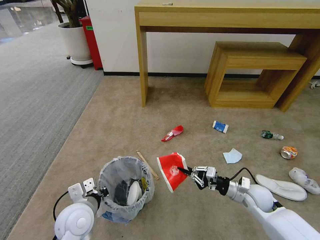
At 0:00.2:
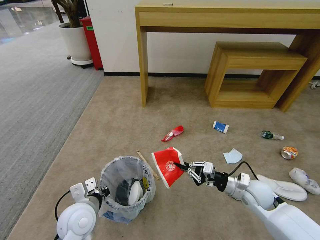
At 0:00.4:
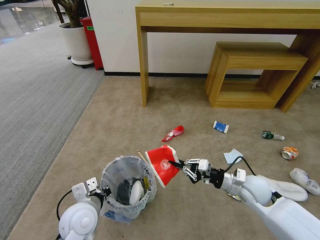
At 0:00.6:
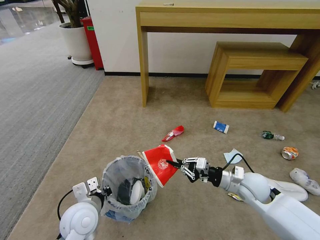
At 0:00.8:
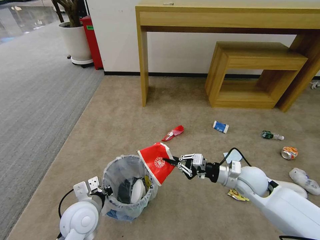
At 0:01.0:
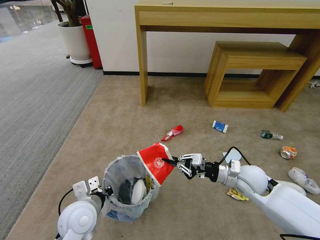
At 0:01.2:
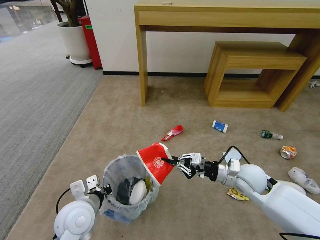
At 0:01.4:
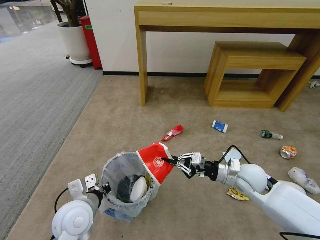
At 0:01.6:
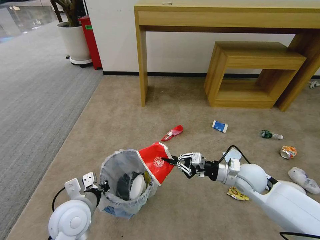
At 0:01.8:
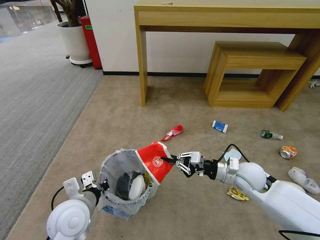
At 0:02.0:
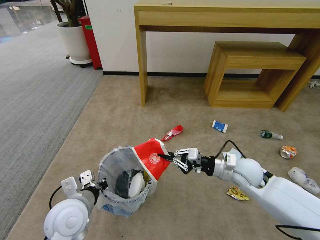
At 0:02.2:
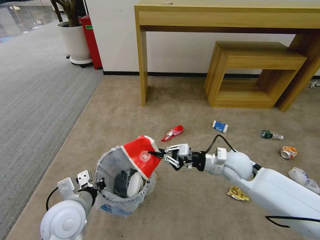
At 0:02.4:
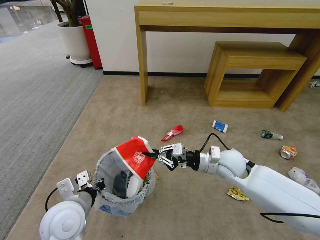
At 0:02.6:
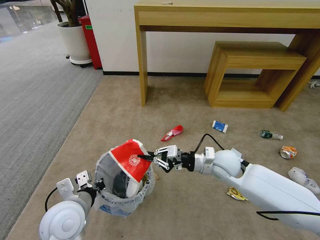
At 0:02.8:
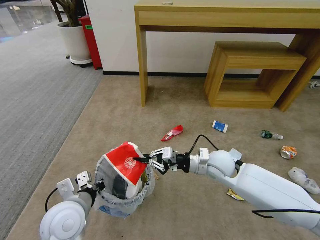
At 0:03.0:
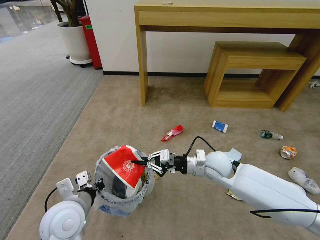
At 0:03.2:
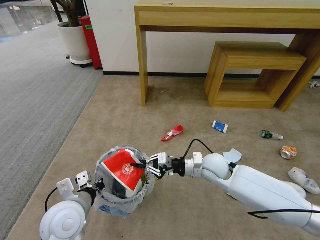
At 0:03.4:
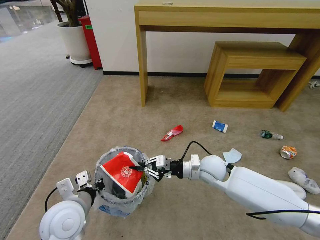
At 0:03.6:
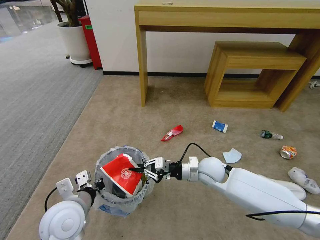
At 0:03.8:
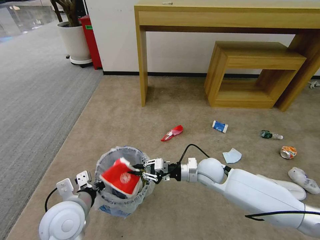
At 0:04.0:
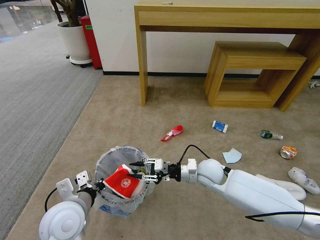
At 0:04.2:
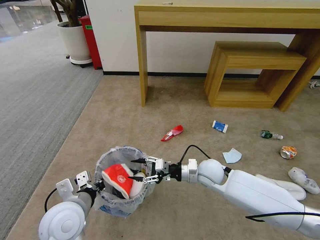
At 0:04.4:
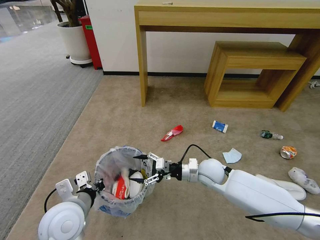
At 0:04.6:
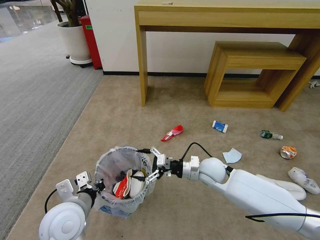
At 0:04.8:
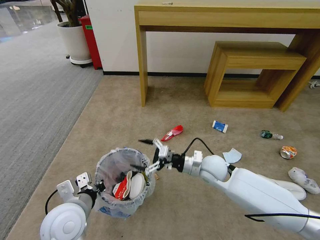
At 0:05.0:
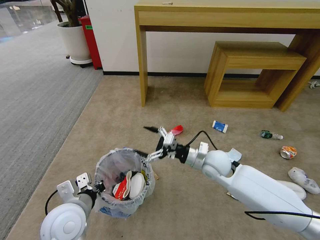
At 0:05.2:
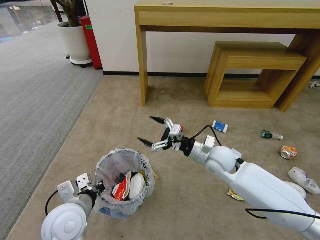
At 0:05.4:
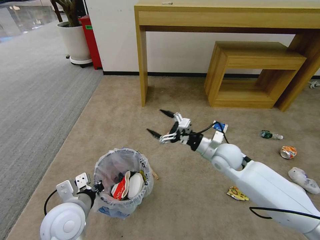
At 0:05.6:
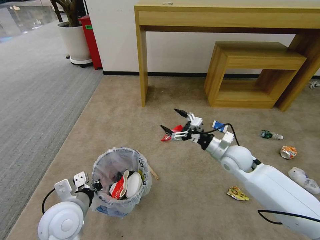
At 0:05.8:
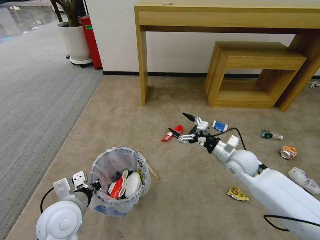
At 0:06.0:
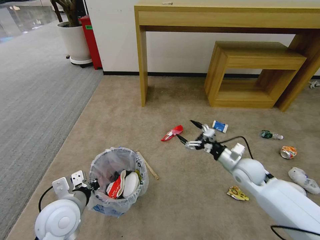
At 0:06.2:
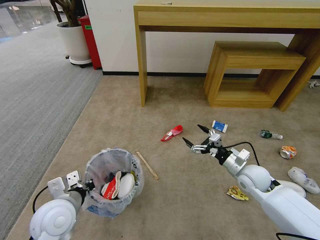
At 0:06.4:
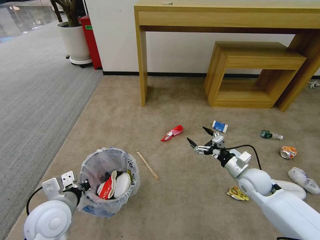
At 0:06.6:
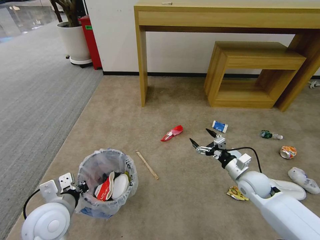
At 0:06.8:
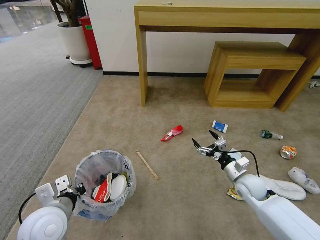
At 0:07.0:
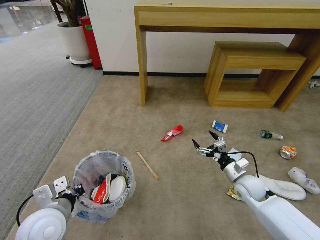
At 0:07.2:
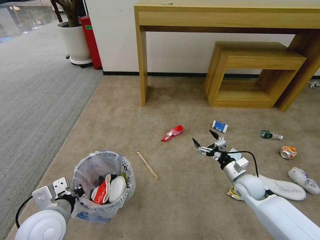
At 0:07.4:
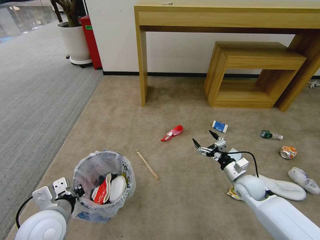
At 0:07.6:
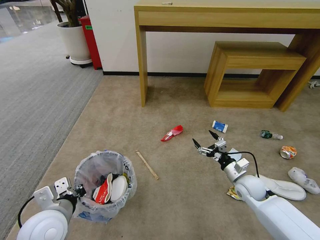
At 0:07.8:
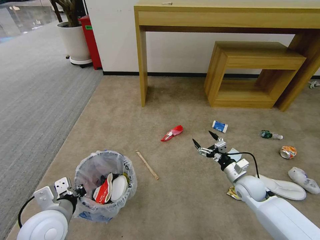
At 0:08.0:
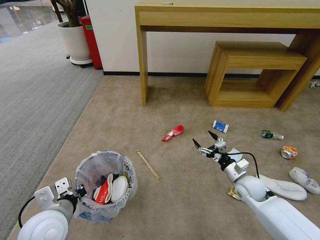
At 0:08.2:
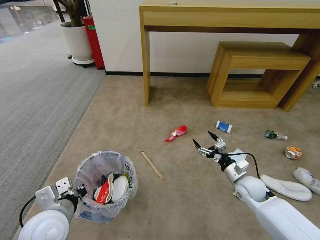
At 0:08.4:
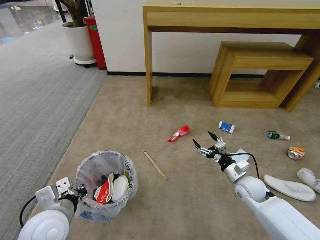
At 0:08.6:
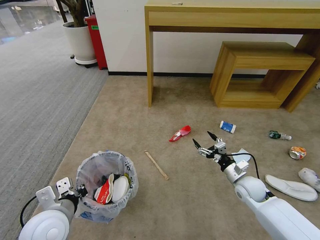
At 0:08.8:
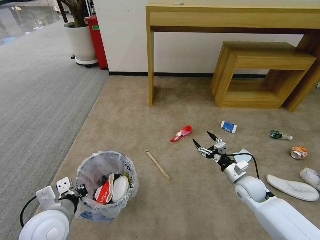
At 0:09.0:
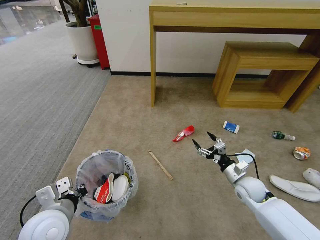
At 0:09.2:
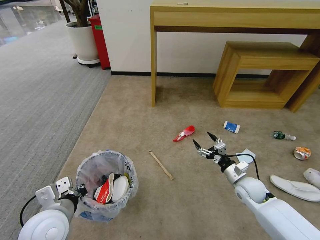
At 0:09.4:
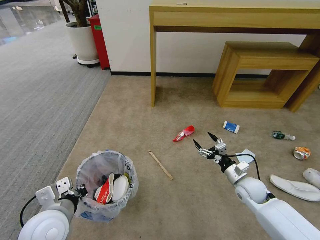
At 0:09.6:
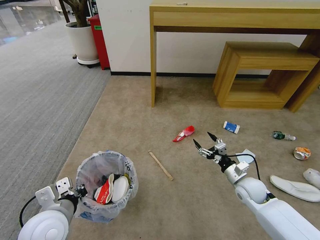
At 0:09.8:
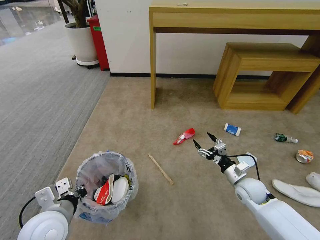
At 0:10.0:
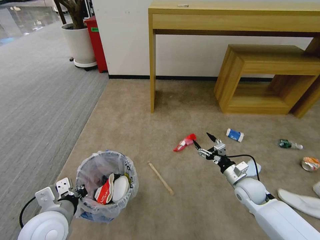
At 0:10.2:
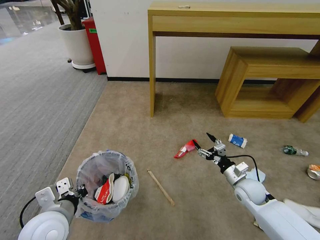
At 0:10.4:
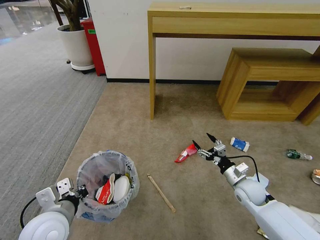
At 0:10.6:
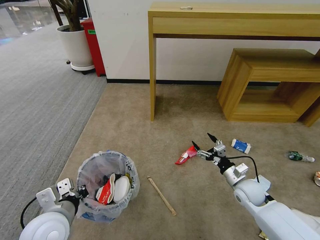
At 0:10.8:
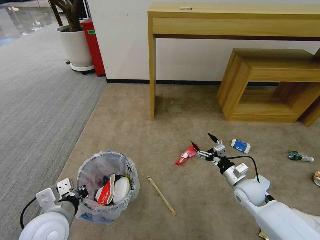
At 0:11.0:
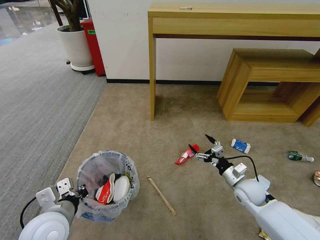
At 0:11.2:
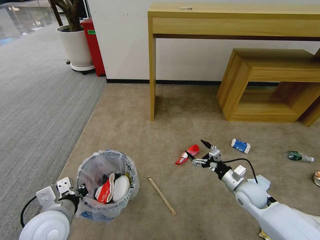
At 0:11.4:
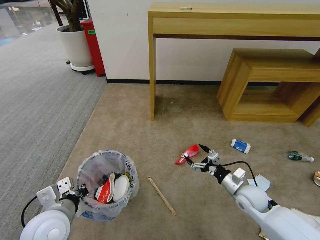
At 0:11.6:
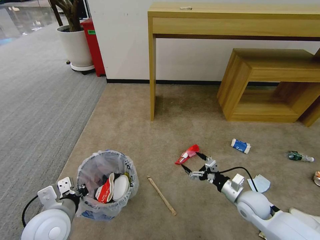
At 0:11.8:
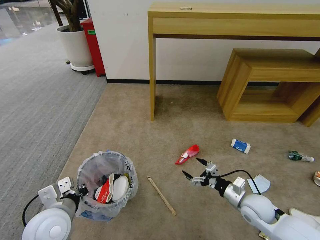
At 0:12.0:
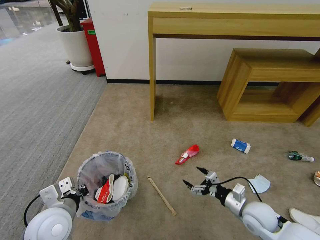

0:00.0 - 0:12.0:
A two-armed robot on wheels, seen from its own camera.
Task of the whole recording: Pick up the trash bin and place the garbage on the floor into it.
0:00.0 - 0:01.6: The right gripper goes about 10 cm upward.
0:01.6 - 0:03.0: The right gripper is displaced to the left by about 10 cm.
0:03.0 - 0:04.4: The right gripper opens.
0:04.4 - 0:06.0: The right gripper heads to the right, covering roughly 15 cm.
0:06.0 - 0:07.6: The right gripper heads downward, covering about 5 cm.
0:07.6 - 0:09.0: Neither gripper changes place.
0:10.4 - 0:12.0: The right gripper shifts some 10 cm backward.

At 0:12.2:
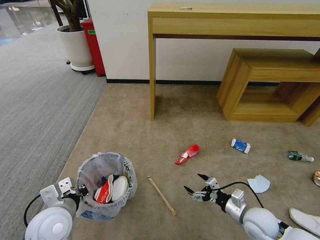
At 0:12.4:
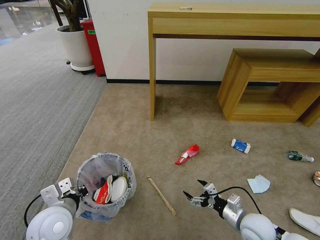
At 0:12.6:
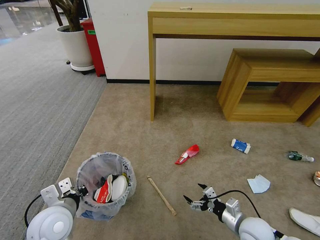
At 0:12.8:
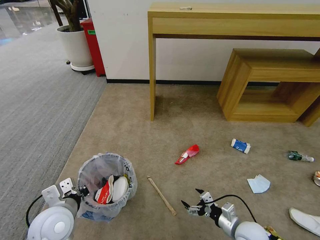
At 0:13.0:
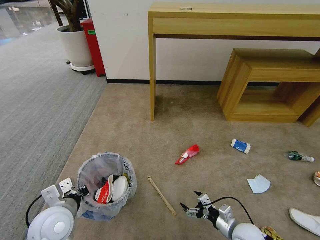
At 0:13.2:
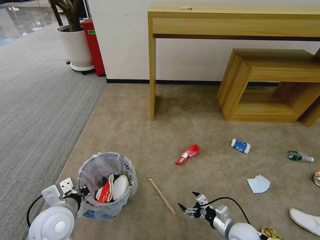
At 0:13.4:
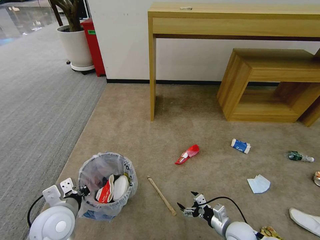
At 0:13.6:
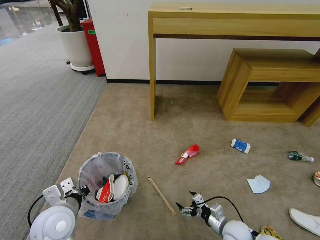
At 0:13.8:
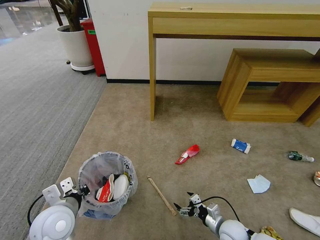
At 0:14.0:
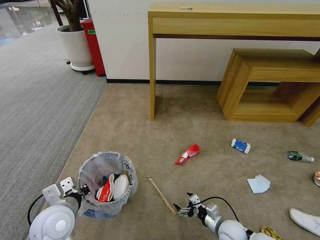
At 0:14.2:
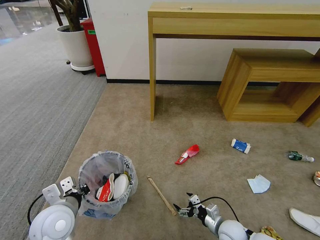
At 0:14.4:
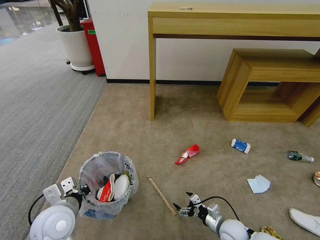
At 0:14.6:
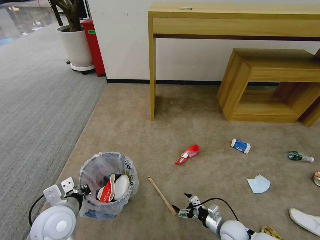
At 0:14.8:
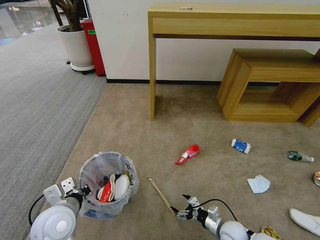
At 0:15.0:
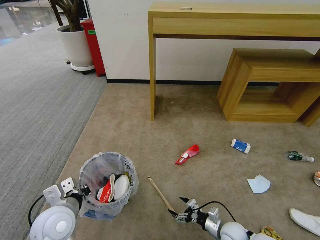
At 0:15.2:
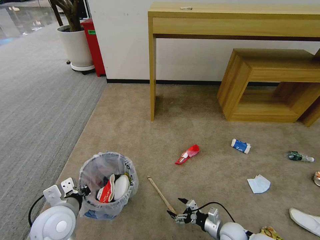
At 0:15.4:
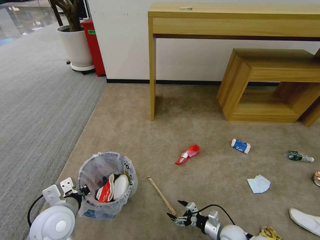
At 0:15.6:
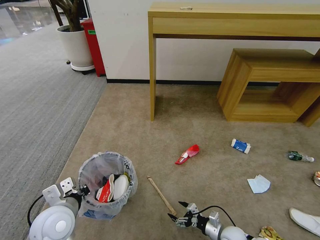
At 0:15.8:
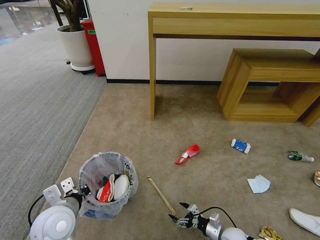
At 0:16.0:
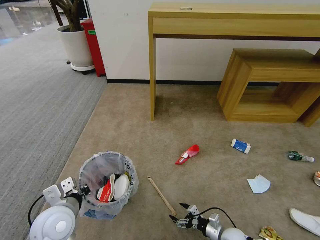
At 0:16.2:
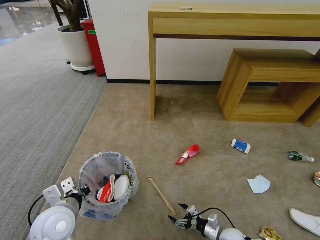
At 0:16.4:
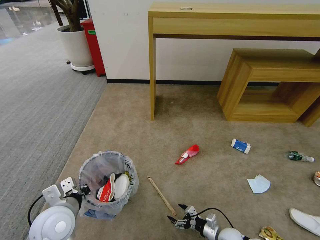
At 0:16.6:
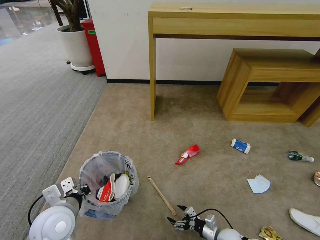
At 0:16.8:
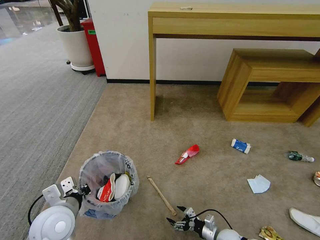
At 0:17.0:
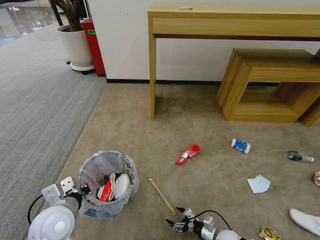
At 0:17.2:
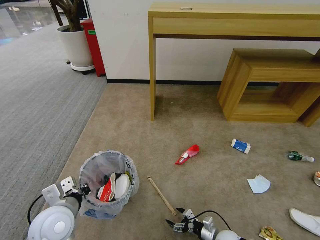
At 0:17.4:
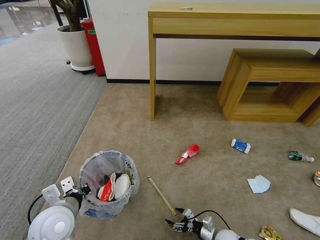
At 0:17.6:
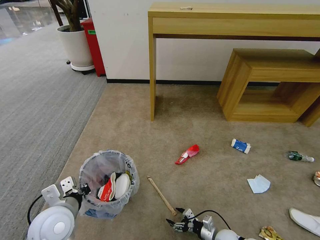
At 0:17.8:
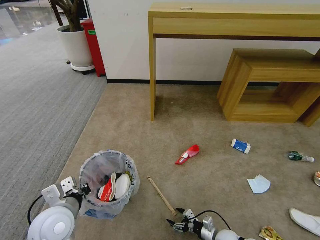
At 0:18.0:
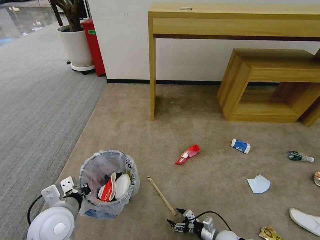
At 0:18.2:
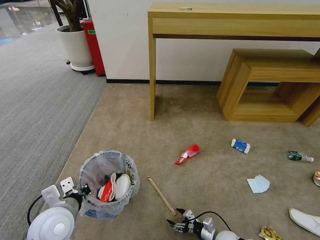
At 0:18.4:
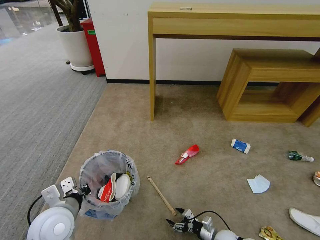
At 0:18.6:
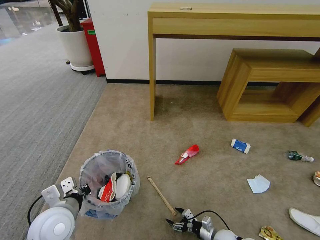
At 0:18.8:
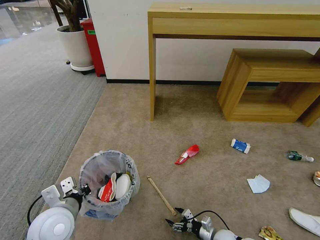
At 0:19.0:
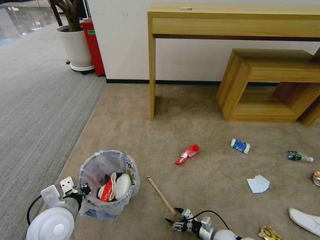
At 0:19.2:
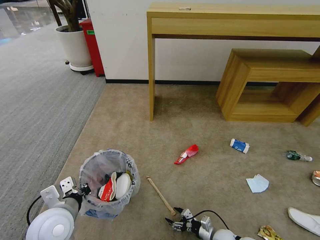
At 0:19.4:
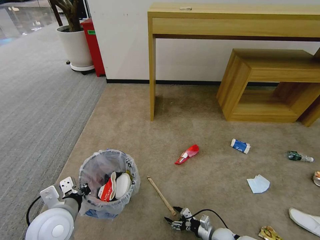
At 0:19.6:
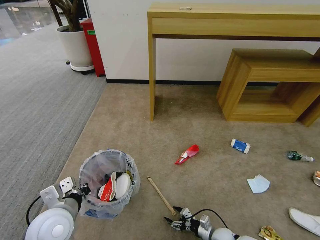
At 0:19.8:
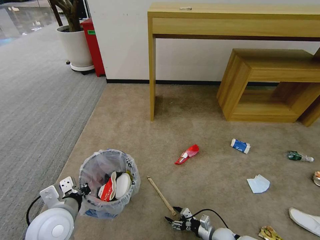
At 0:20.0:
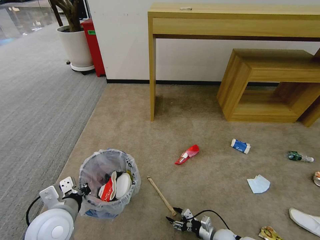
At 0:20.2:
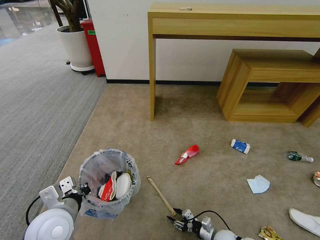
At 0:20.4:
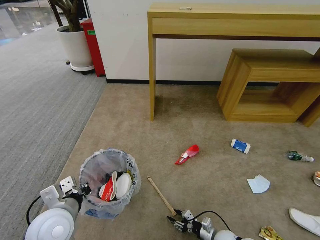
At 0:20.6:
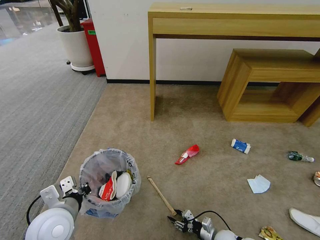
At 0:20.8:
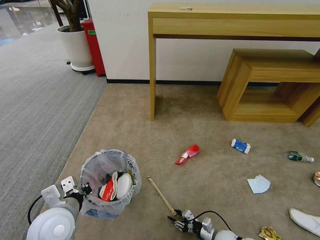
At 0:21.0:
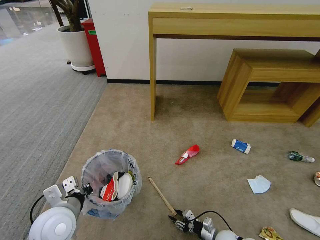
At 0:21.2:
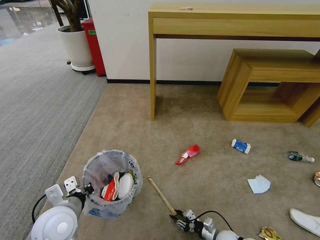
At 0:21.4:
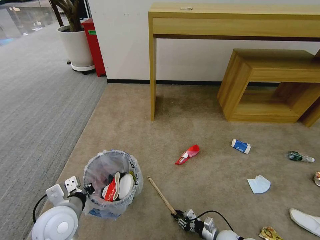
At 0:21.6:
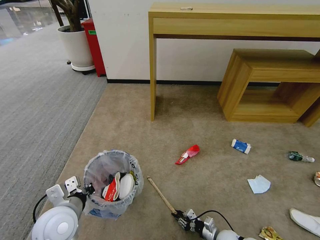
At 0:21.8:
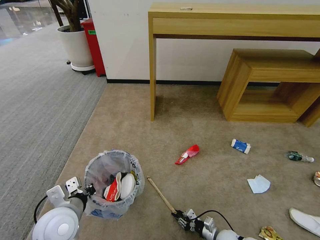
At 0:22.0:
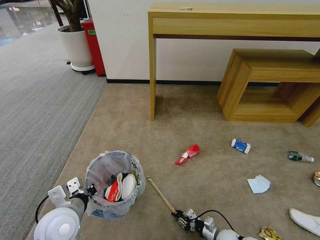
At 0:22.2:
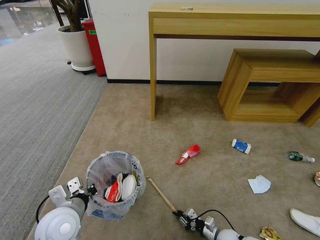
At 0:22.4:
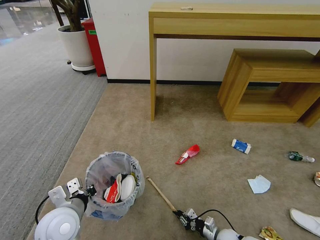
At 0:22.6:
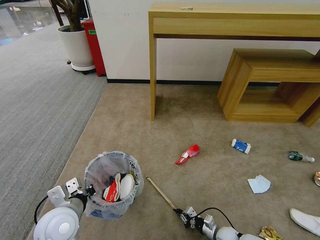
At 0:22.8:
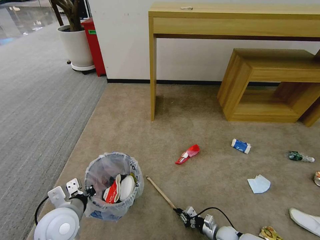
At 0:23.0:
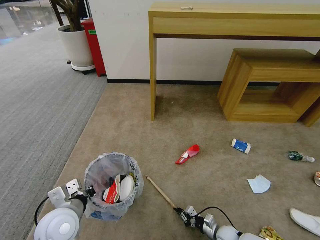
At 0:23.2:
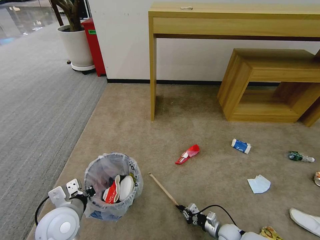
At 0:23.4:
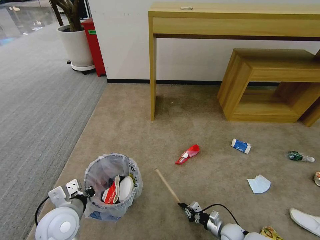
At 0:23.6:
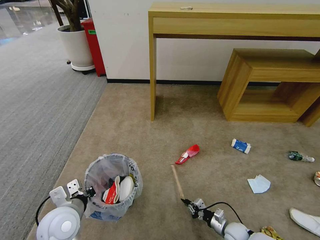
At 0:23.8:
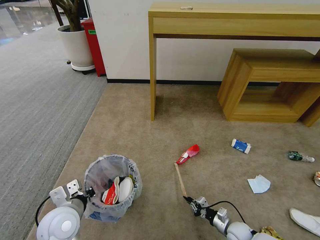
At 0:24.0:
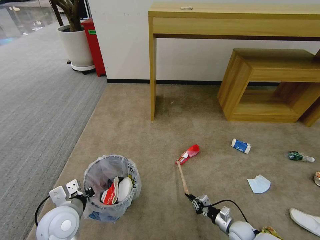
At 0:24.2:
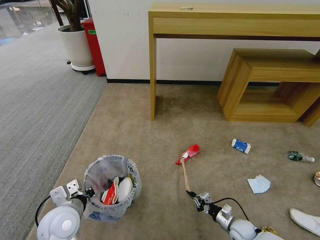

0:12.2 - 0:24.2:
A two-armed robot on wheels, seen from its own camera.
Task of the whole recording: Pick up the trash bin and place the garbage on the floor into it.
0:12.2 - 0:13.8: The right gripper shifts roughly 10 cm downward and to the left.
0:13.8 - 0:15.2: The grippers make only small movements.
0:15.2 - 0:16.6: The grippers move only a little.
0:16.6 - 0:21.2: There are only small adjustments of the grippers.
0:21.2 - 0:22.6: The right gripper closes.
0:22.6 - 0:24.2: The right gripper moves about 5 cm.
